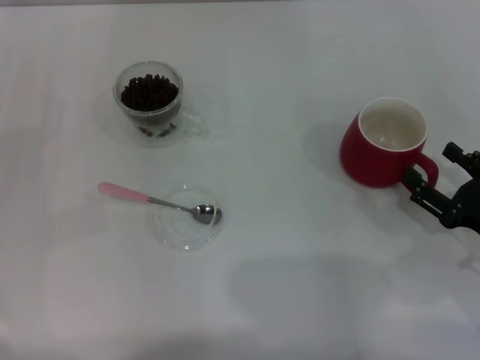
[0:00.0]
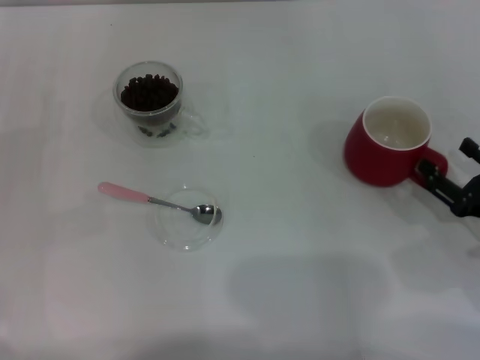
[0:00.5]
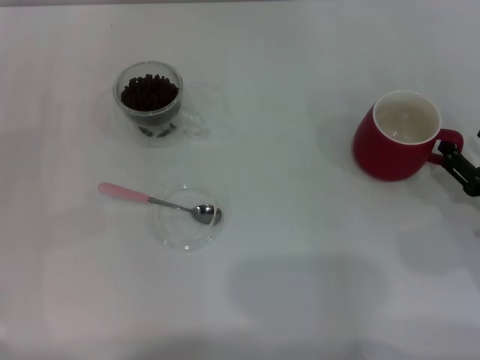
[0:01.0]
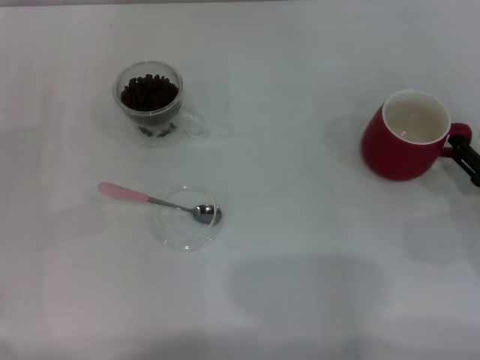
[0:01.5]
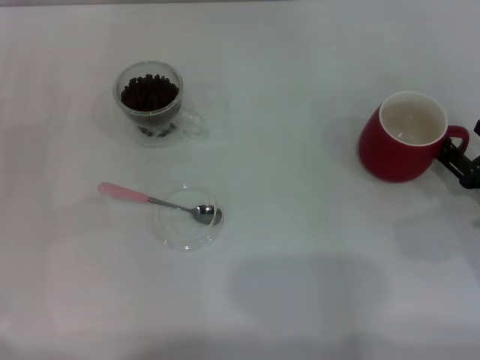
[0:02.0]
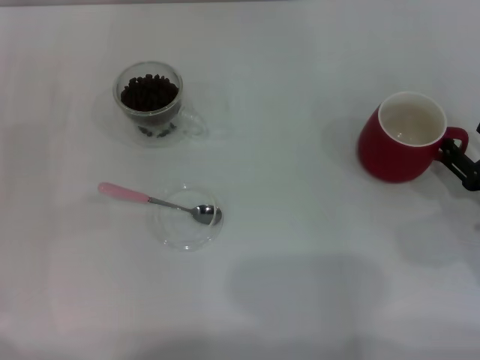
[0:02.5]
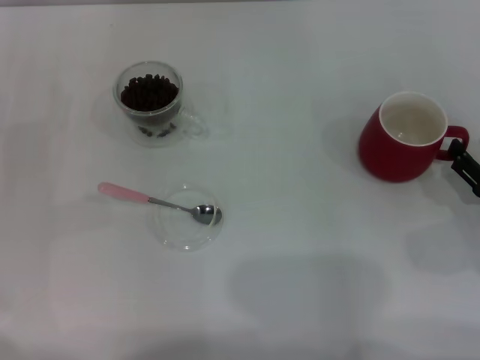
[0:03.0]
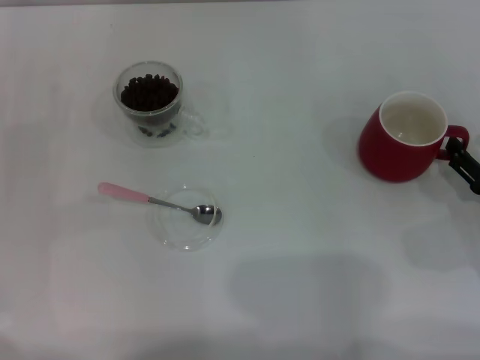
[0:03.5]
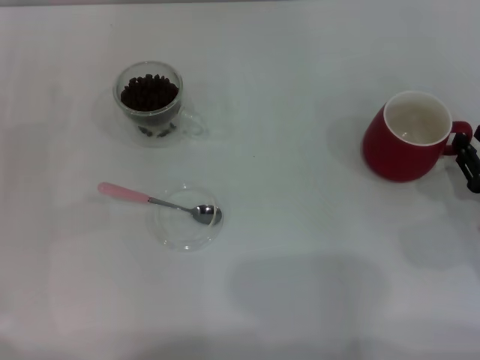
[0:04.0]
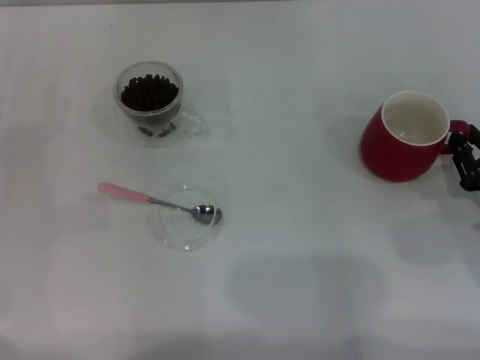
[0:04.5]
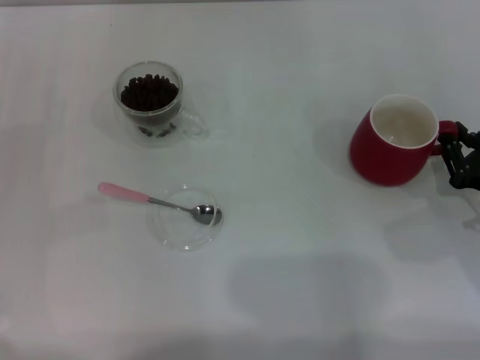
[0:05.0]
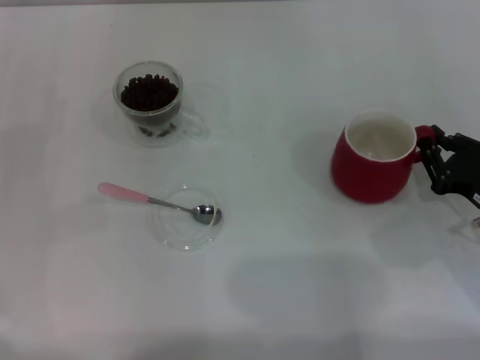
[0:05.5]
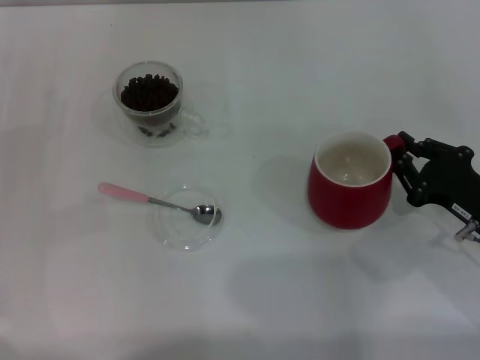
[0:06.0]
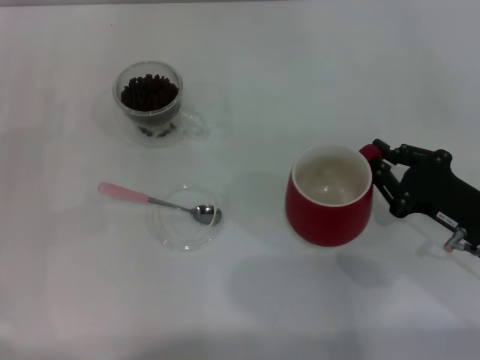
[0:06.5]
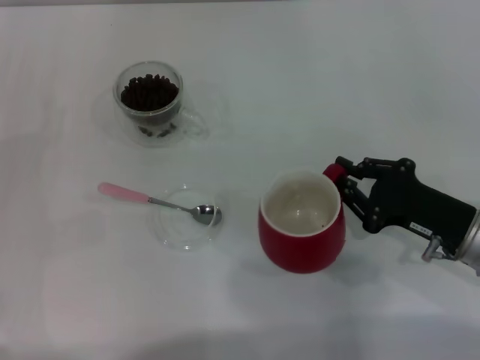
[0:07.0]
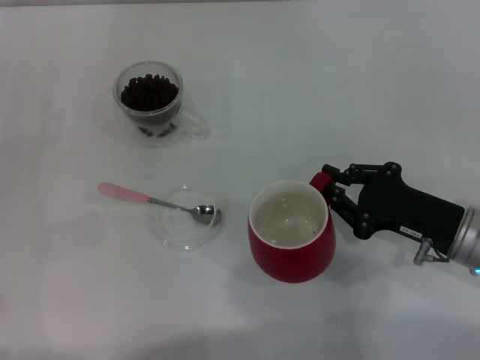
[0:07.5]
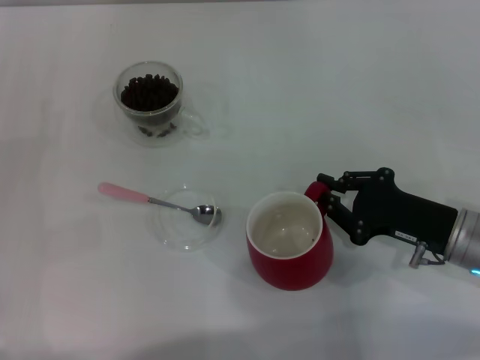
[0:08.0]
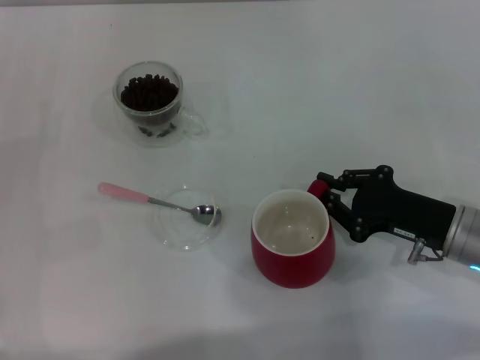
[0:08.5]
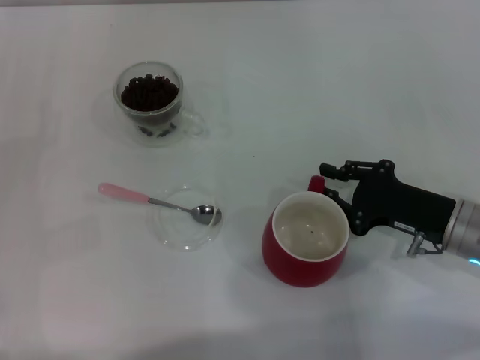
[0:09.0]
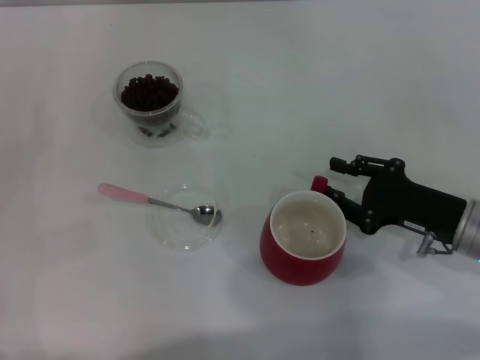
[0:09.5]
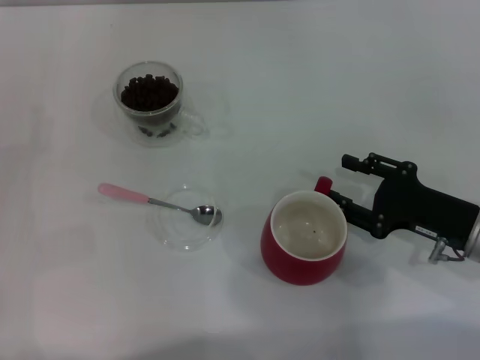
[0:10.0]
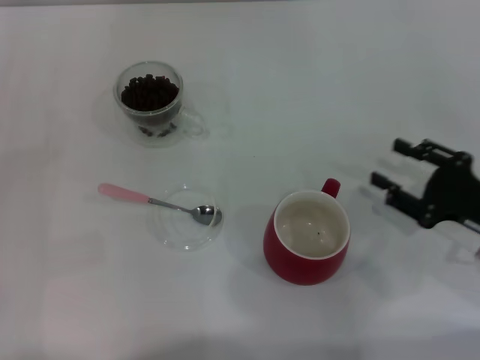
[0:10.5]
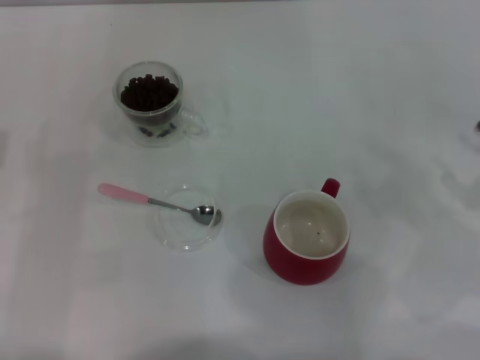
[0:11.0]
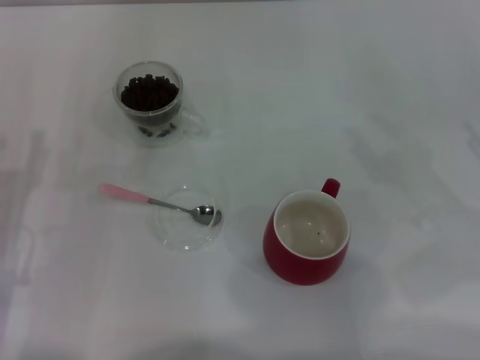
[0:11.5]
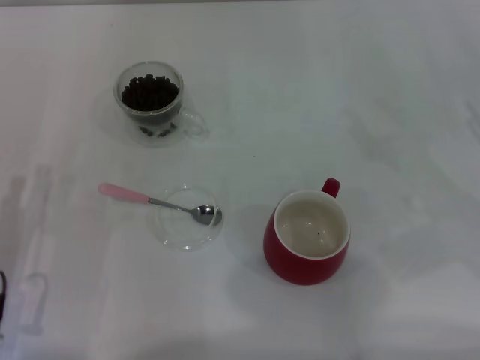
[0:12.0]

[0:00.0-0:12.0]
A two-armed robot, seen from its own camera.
Task of the whole recording: Use a pink spoon to take out the coffee beans from the glass and pour them into the red cup.
Step, 0:00.0 to 0:10.5: Move the cup to the center of view with the left gripper.
0:00.0 to 0:04.0: The grippers make only small movements.
0:04.0 to 0:06.0: The right gripper closes up.
0:08.0 to 0:10.0: The right gripper opens up.
0:10.0 to 0:12.0: The right gripper is displaced to the right and upward by approximately 10 cm. Meanwhile the left gripper heads to the right and backward, covering approximately 10 cm.

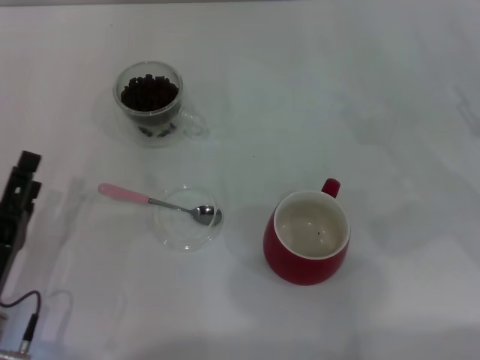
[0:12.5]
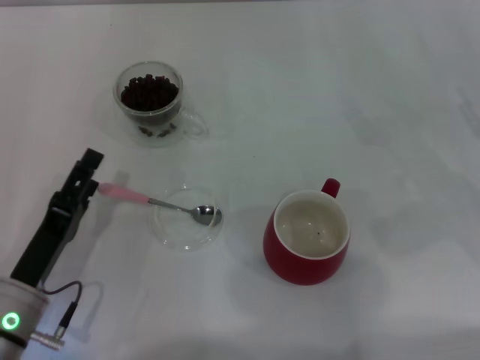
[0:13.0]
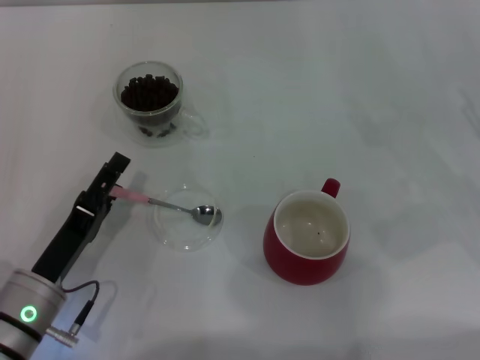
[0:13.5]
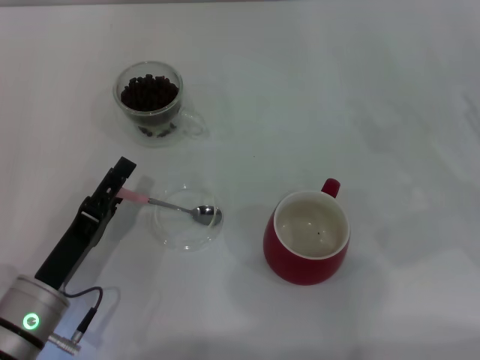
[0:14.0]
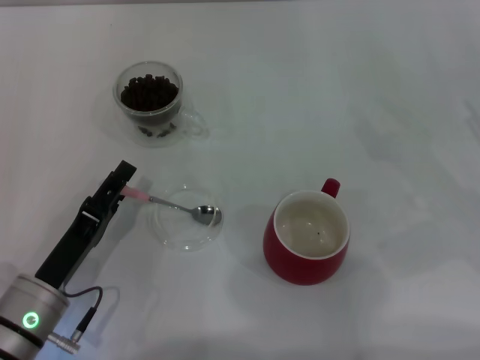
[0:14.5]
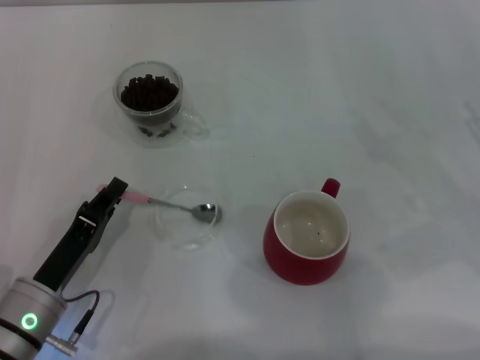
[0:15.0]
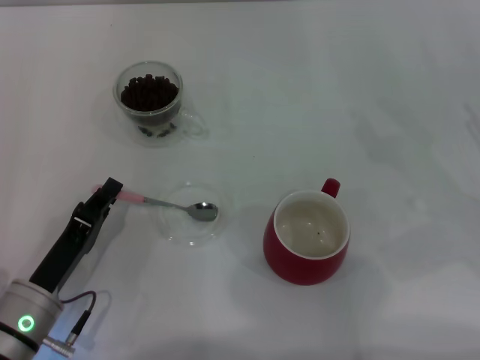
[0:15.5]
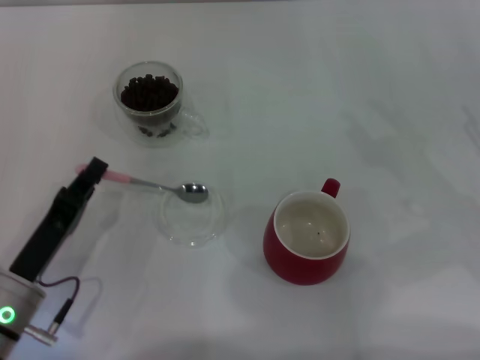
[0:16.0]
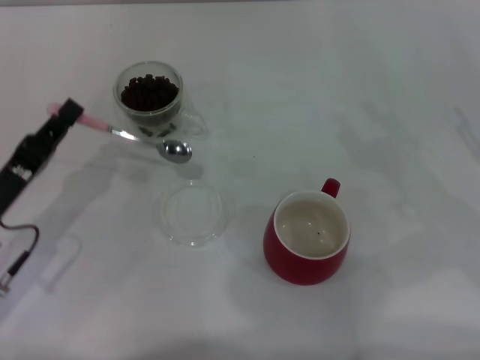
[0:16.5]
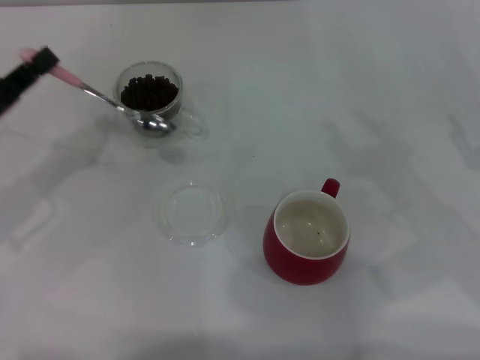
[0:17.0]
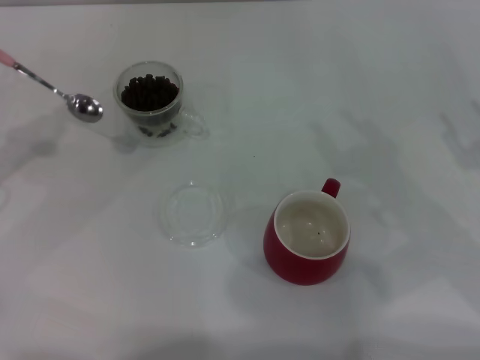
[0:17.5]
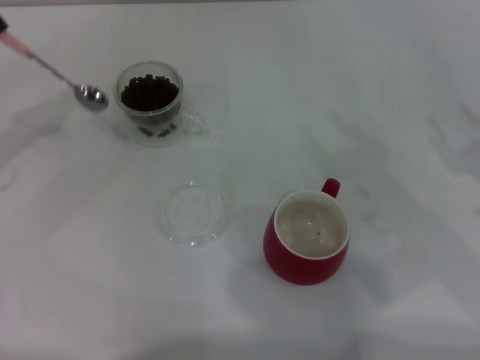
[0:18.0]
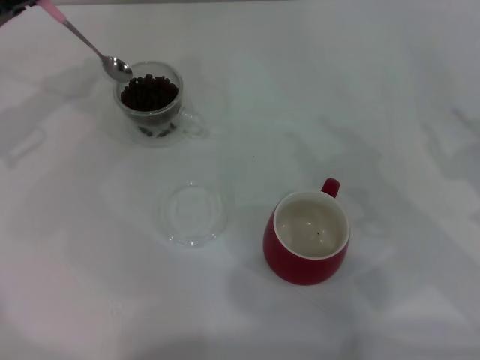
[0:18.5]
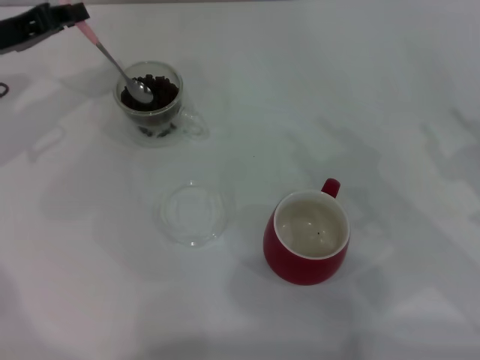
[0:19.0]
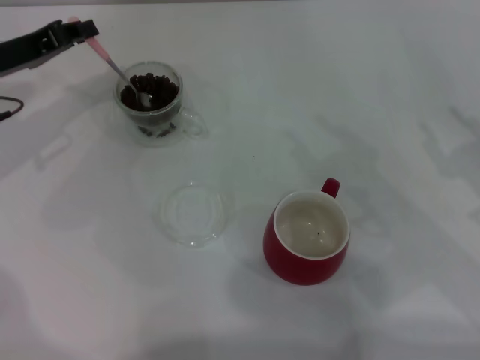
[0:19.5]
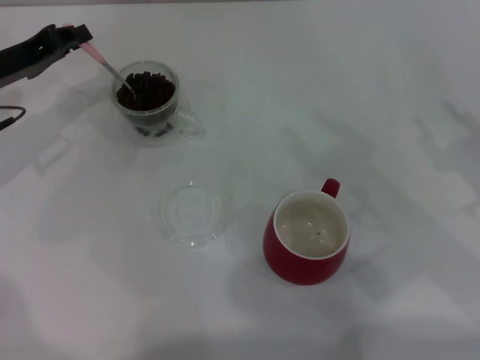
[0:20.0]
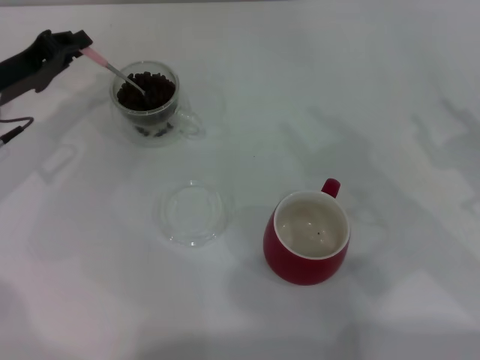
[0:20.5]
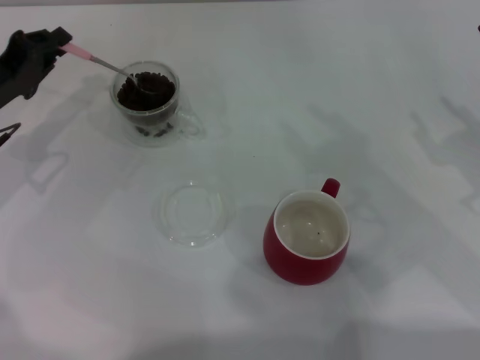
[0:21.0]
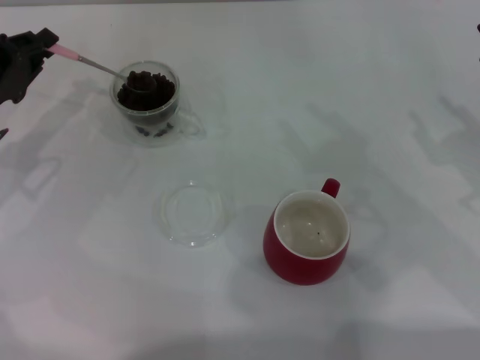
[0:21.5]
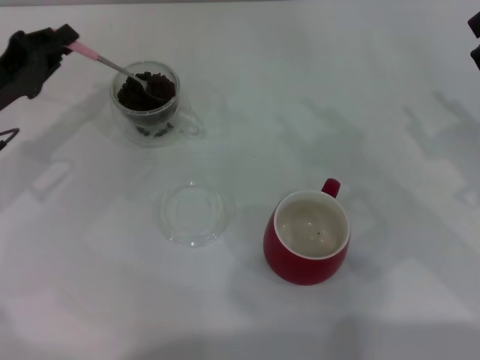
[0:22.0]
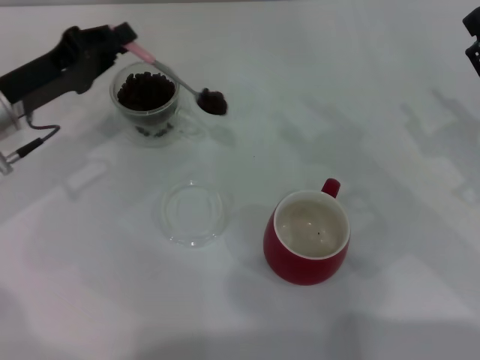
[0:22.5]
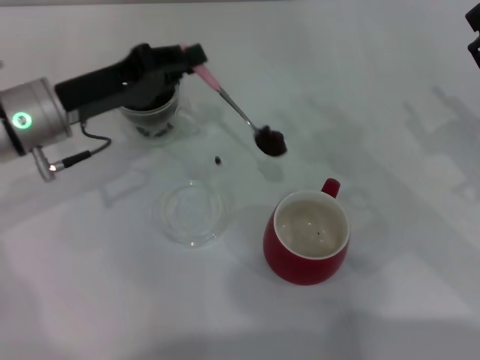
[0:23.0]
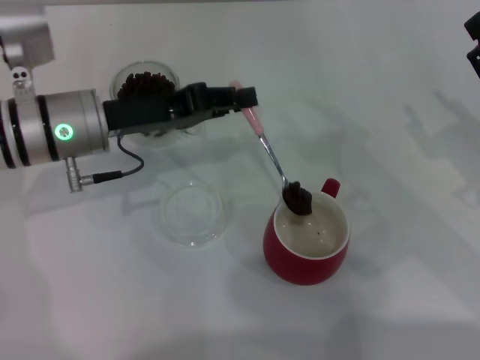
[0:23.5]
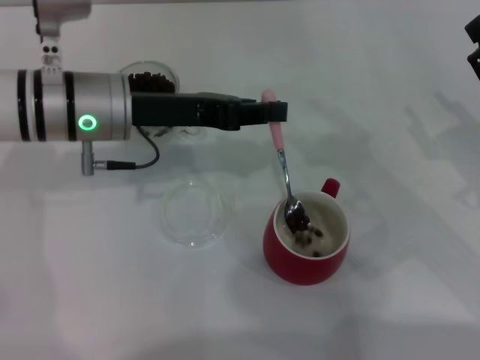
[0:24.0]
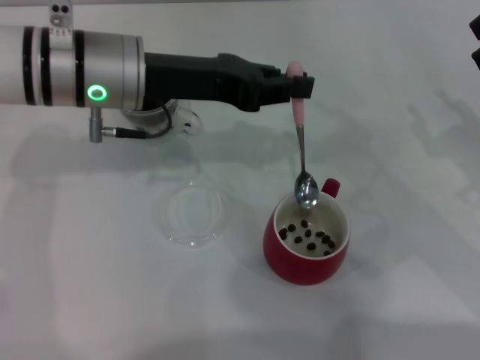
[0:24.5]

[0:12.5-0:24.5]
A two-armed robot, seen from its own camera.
Task of the whole recording: Use a pink spoon to take out the coffee beans from the glass and pour them into the red cup.
Step, 0:12.5 to 0:16.5: Pick up the spoon with the right gripper.
0:12.5 to 0:14.5: There are only small adjustments of the grippers.
0:14.5 to 0:16.5: The left gripper heads to the left, covering about 5 cm, and closes.
0:16.5 to 0:18.5: The left gripper heads forward and upward, covering about 20 cm.
0:18.5 to 0:20.5: The left gripper shifts about 5 cm downward.
0:20.5 to 0:22.5: The grippers make only small movements.
0:22.5 to 0:24.5: The left gripper moves to the right and upward, some 15 cm.

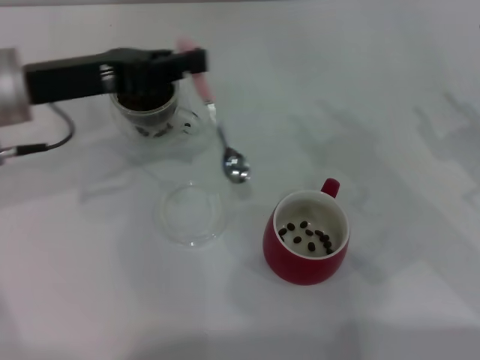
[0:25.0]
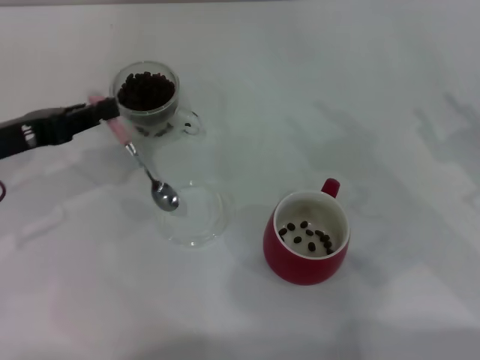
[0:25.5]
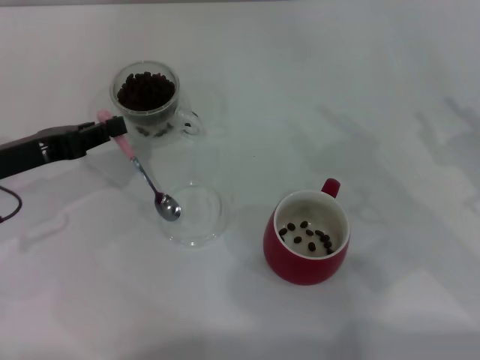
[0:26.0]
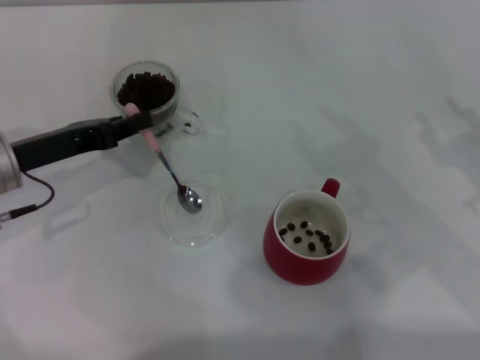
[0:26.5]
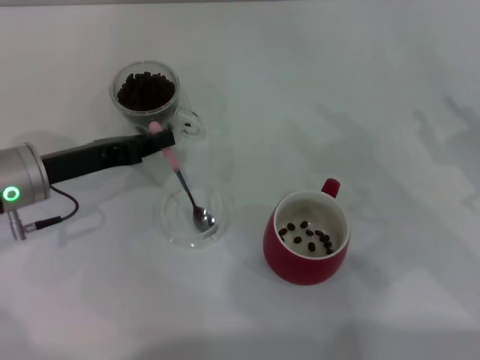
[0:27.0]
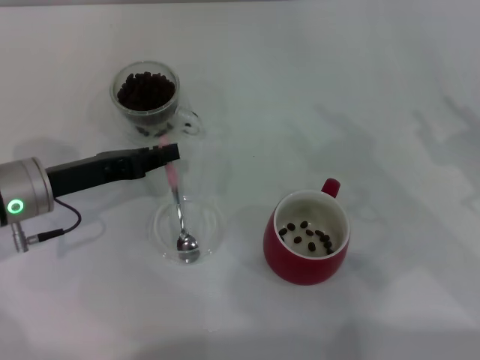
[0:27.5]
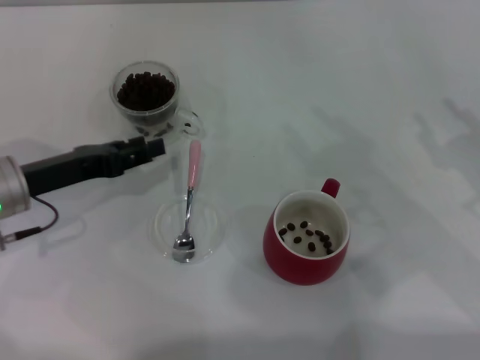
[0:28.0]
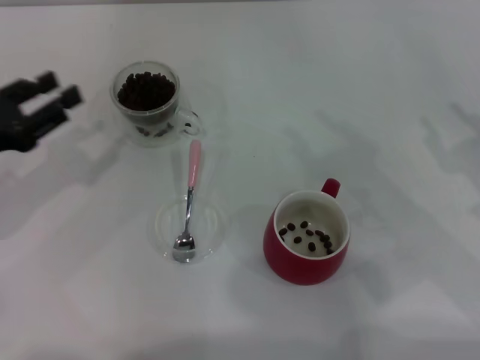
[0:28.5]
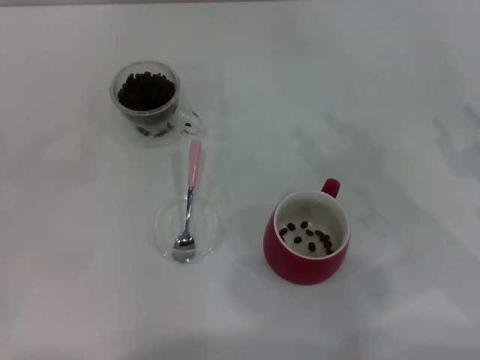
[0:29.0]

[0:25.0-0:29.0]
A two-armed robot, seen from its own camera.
Task of the whole recording: Use a pink spoon to take out the coffee beans from the glass and pour them into the red cup.
0:25.0 to 0:27.0: The left gripper heads downward, covering roughly 10 cm.
0:27.0 to 0:29.0: The left gripper moves to the left and backward, some 15 cm, and opens.
